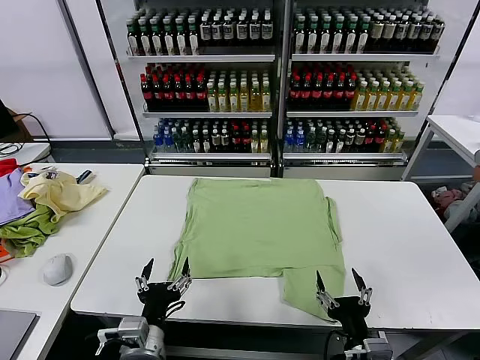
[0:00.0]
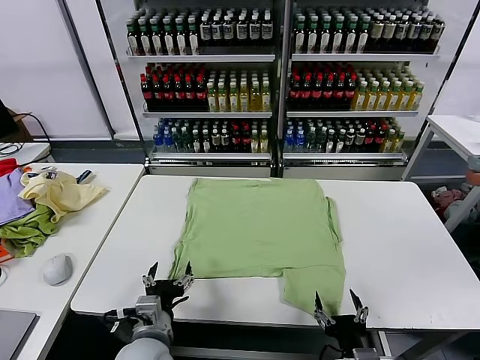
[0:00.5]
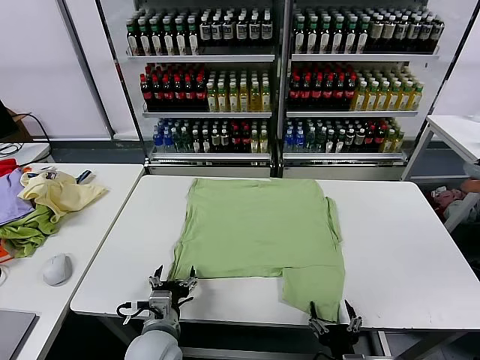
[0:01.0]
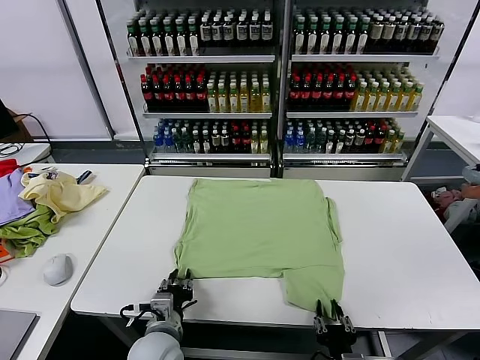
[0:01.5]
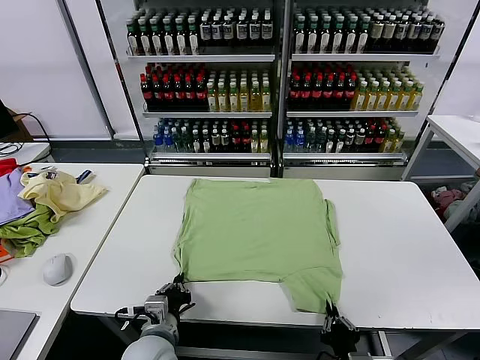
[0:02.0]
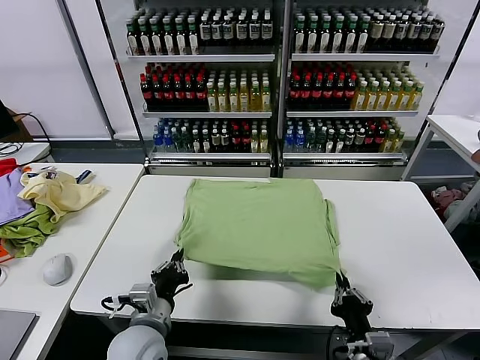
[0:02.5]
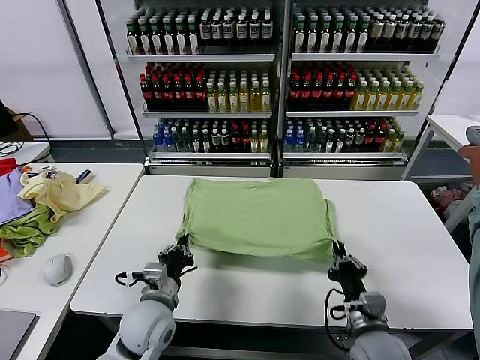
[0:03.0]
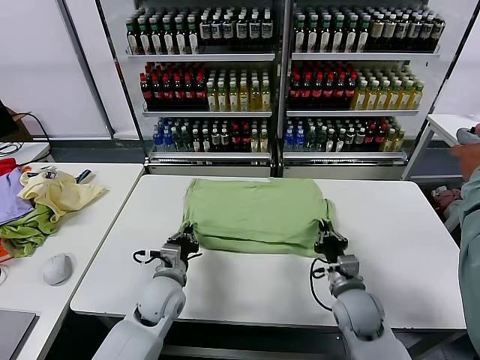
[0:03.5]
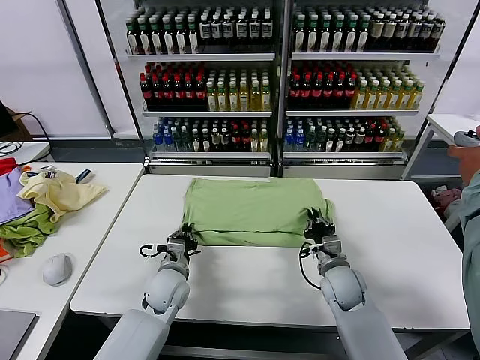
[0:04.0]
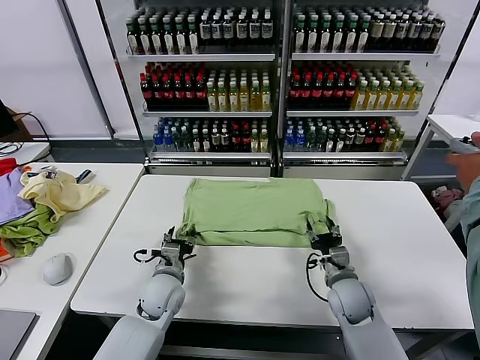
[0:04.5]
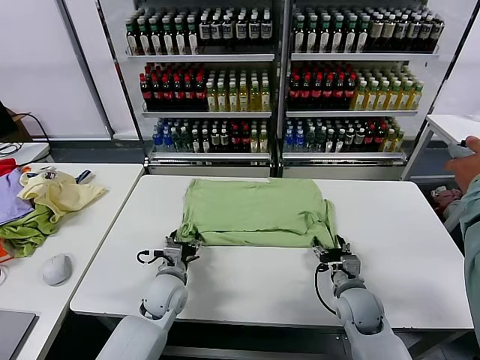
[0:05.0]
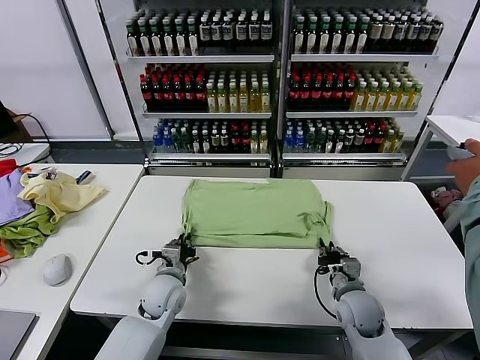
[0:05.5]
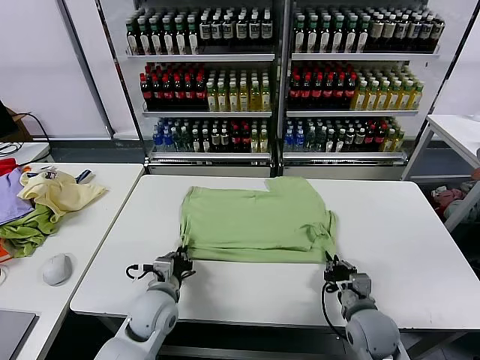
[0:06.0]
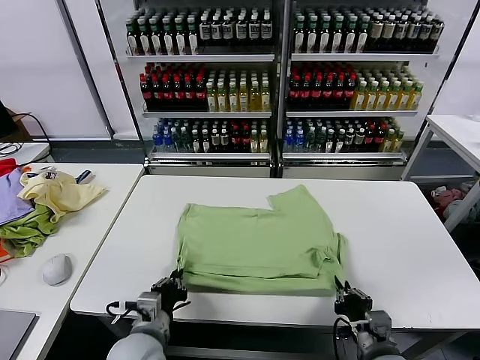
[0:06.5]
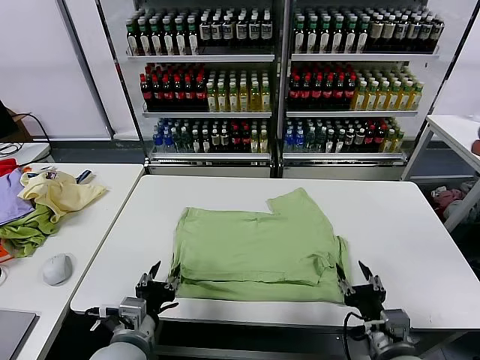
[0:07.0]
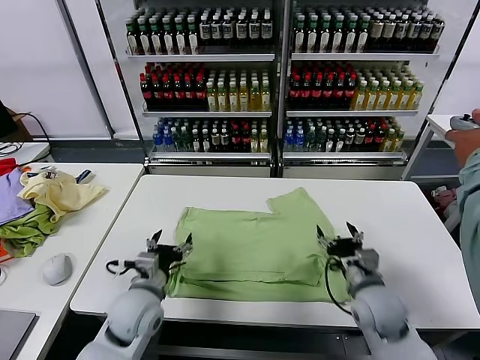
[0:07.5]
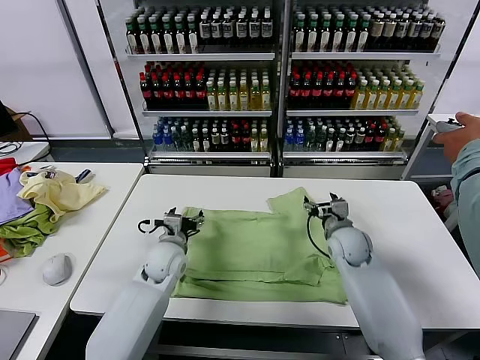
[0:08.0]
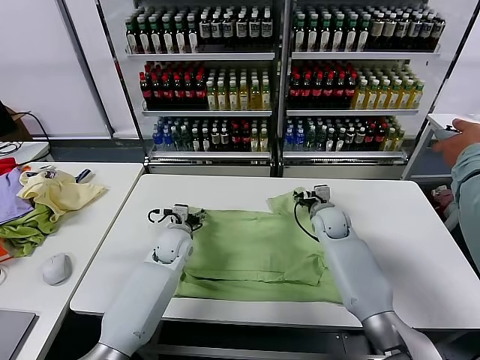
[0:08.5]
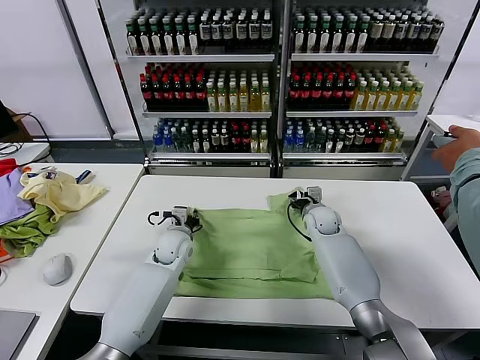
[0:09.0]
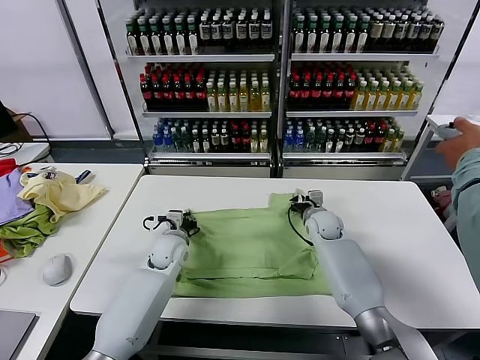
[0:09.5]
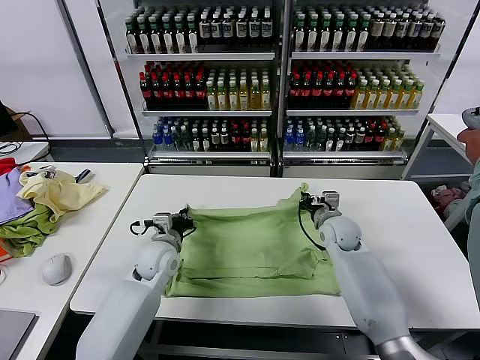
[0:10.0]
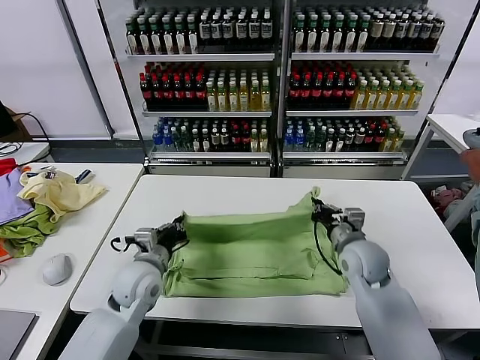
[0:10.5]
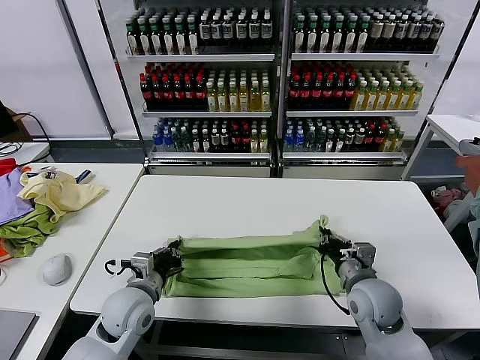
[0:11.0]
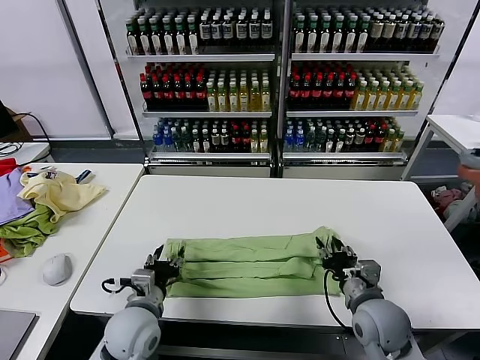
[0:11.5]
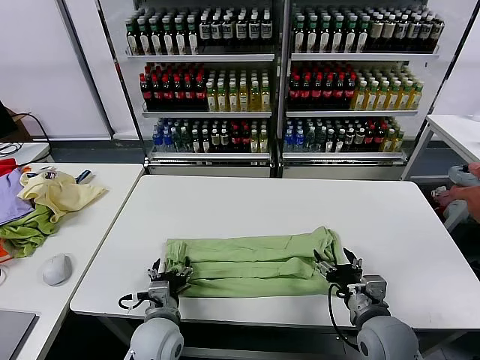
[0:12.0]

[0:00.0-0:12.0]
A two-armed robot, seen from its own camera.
Task of the whole recording: fold and organize the clothes.
Step, 0:00.0 to 0:01.5: use both grippers simultaneously to clamp the lower edge of the clothing fabric.
Step, 0:02.0 to 0:04.0: use both grippers to drag the lower edge of the fabric forward and fold it over the upper edge.
Step, 0:04.5 to 0:06.5: Drag the clothes downward with both gripper.
Step, 0:07.0 to 0:09.0: use both grippers simultaneously to clamp the upper edge of the clothing fabric.
Step, 0:09.5 to 0:11.5: use both grippers to drag the upper edge of the fabric backward and fold it over the lower edge.
0:02.0 to 0:04.0: The right gripper goes about 25 cm forward, while the left gripper goes some 15 cm forward.
0:04.0 to 0:06.0: The left gripper travels backward by roughly 5 cm, and opens and closes again; the right gripper is displaced backward by roughly 10 cm, and opens and closes again.
0:06.0 to 0:08.0: The left gripper heads forward, covering roughly 10 cm, and opens its fingers, while the right gripper shifts some 15 cm forward, and opens up.
0:08.0 to 0:10.0: The left gripper closes its fingers. The right gripper closes its fingers.
0:10.0 to 0:12.0: Both grippers move backward, about 20 cm. The left gripper opens its fingers; the right gripper opens its fingers.

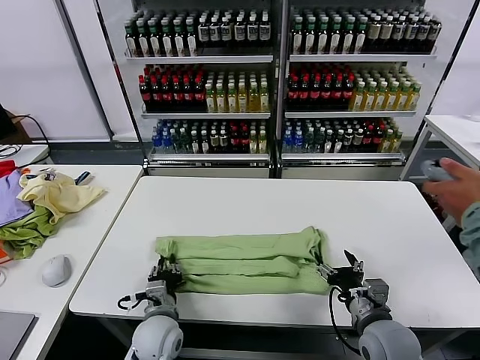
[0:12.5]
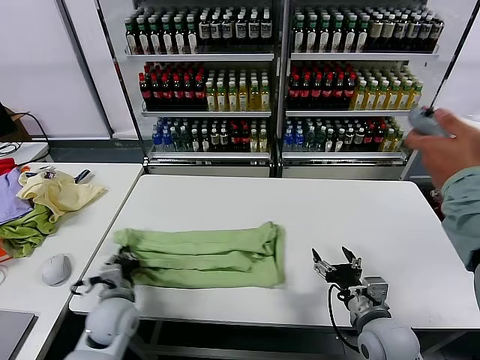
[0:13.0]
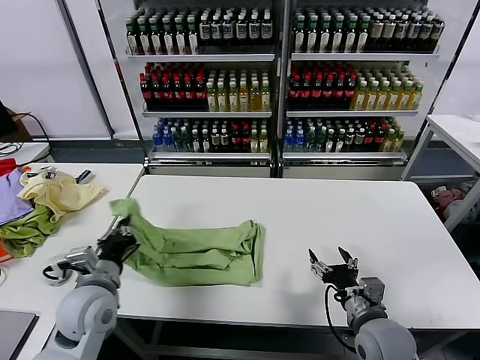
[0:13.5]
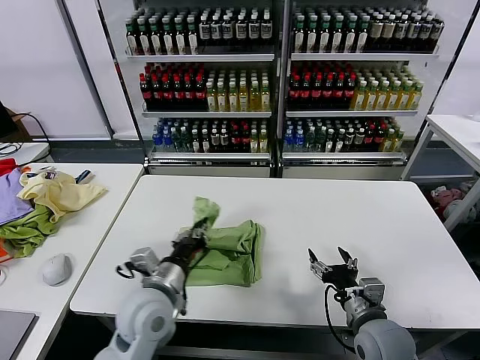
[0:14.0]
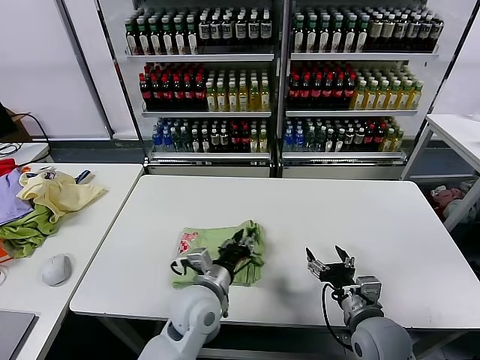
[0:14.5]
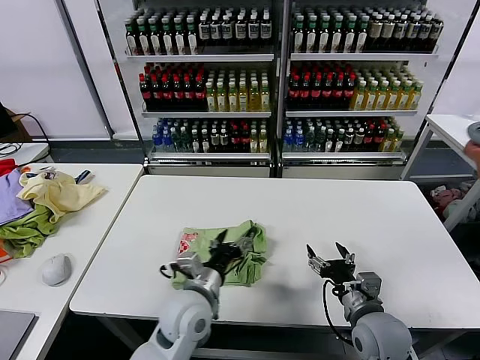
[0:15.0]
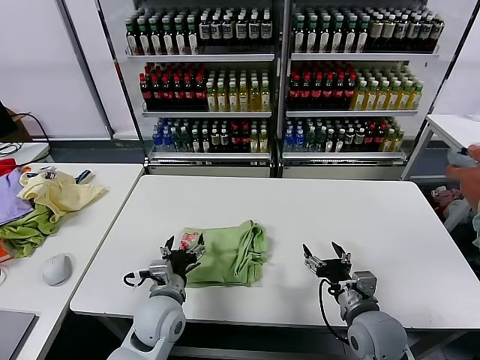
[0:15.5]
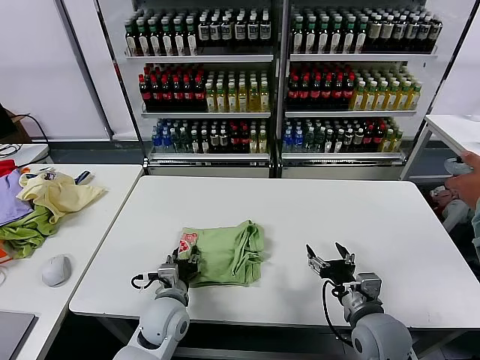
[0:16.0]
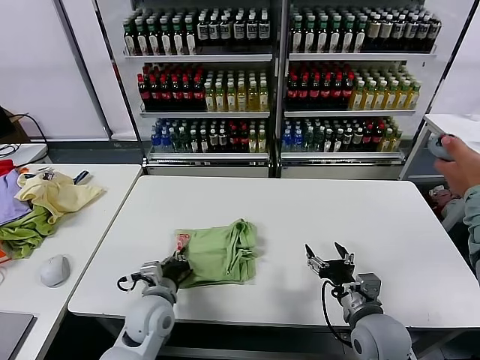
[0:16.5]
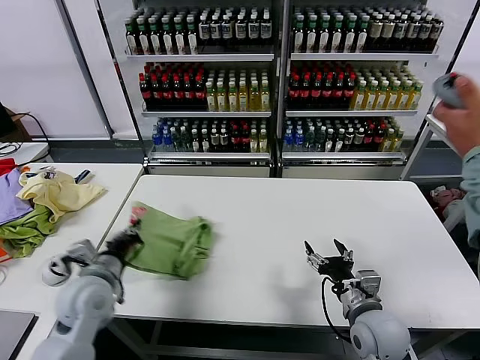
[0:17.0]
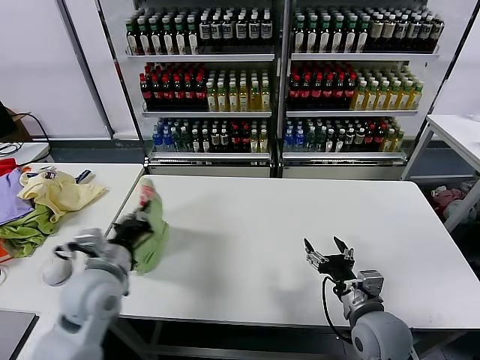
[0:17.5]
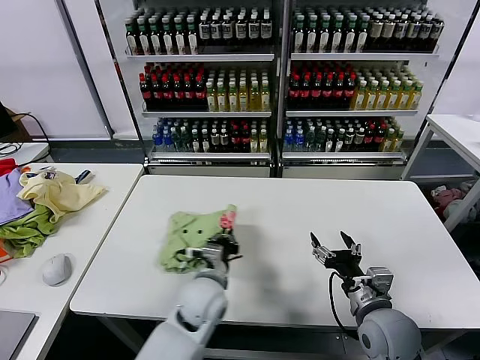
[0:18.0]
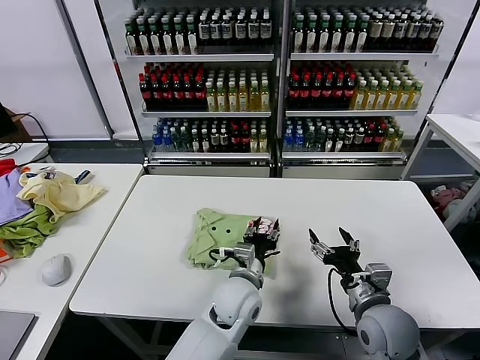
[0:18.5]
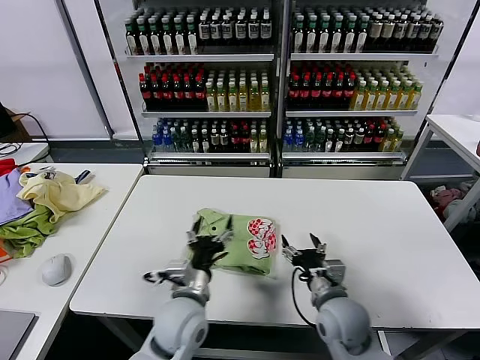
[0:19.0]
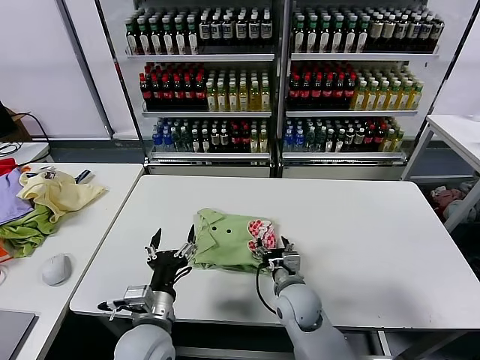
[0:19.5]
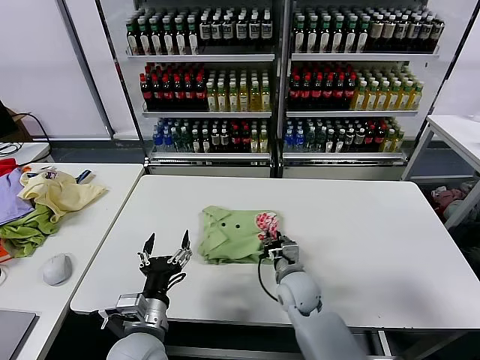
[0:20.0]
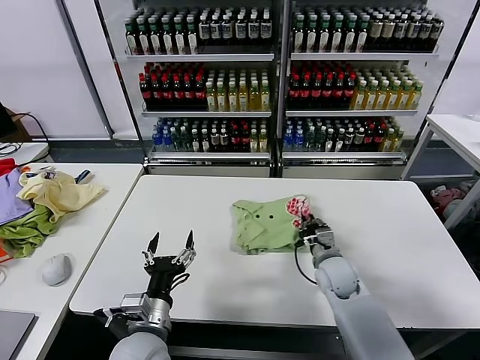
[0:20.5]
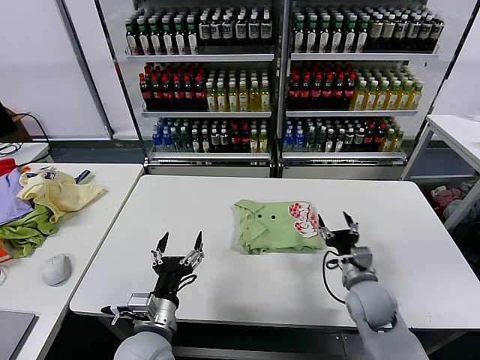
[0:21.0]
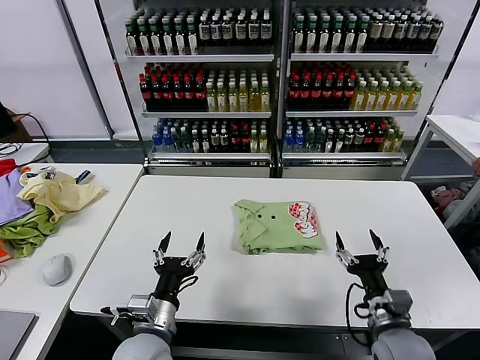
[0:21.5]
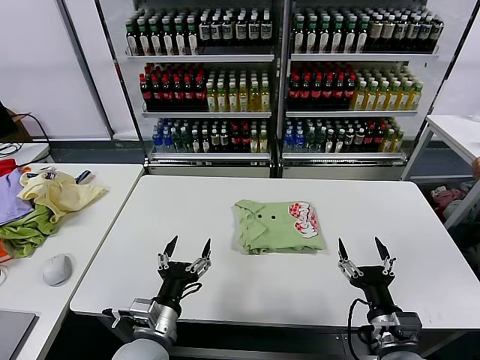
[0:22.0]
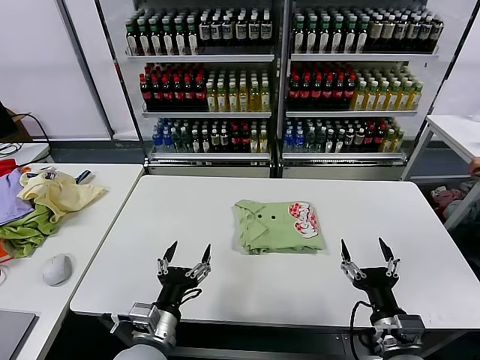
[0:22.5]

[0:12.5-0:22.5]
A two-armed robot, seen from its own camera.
Task of the whole recording: fold and organize the clothes.
Step, 0:13.0 to 0:14.5: use the left gripper to drag the left edge of the fabric to the left and folds it over the right edge.
Step, 0:15.0 to 0:18.0: Flip the folded clothes over with left gripper.
Step, 0:18.5 to 0:20.5: Drag the clothes to the center of the table.
0:12.5 to 0:14.5: The left gripper is displaced upward and to the right by roughly 15 cm.
0:14.5 to 0:16.5: The left gripper moves to the left and downward, some 10 cm, and opens and closes again.
0:16.5 to 0:18.5: The left gripper is displaced to the right by roughly 20 cm, and opens up.
0:18.5 to 0:20.5: The left gripper is displaced to the left and backward by about 20 cm, and opens its fingers. Meanwhile the right gripper moves forward and downward, some 15 cm, and closes its fingers.
0:20.5 to 0:22.5: The right gripper heads backward, covering about 25 cm, and opens.
